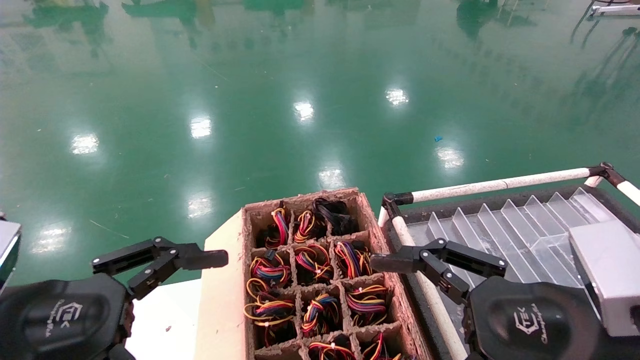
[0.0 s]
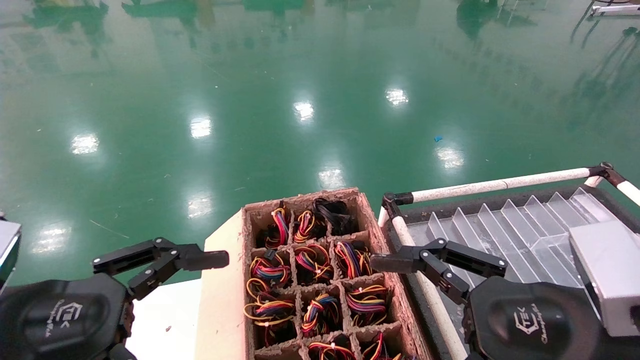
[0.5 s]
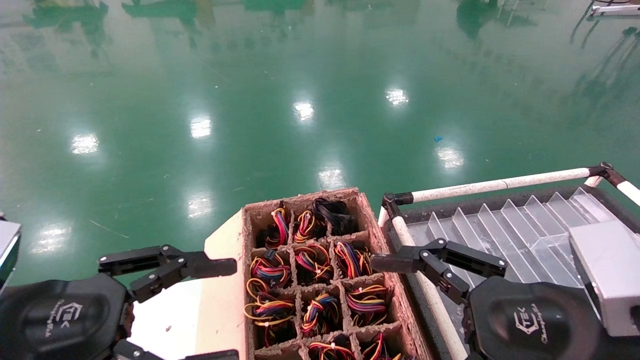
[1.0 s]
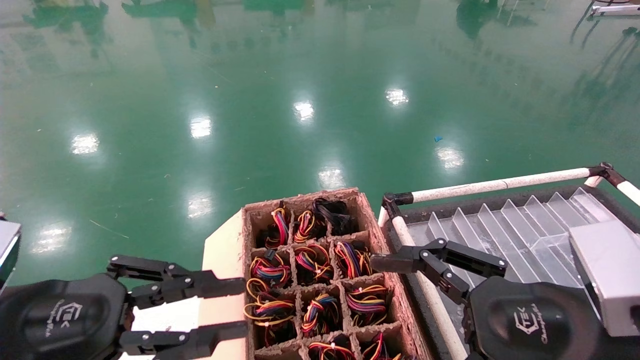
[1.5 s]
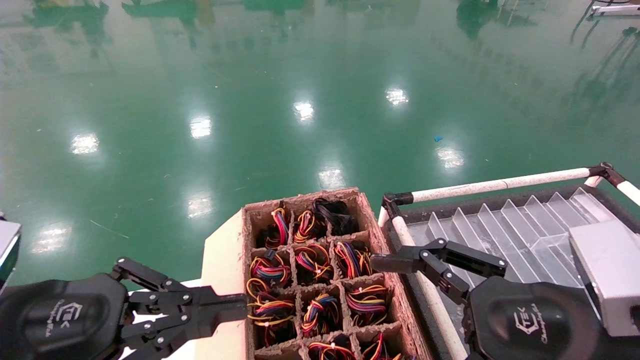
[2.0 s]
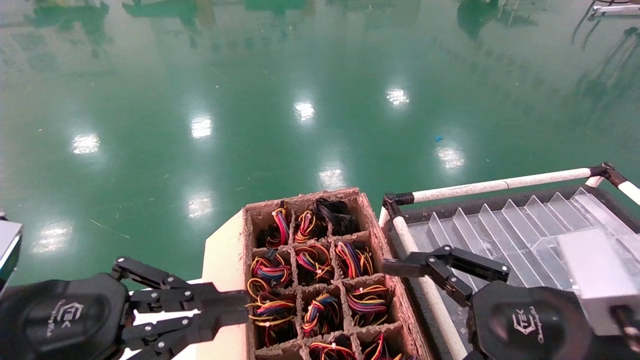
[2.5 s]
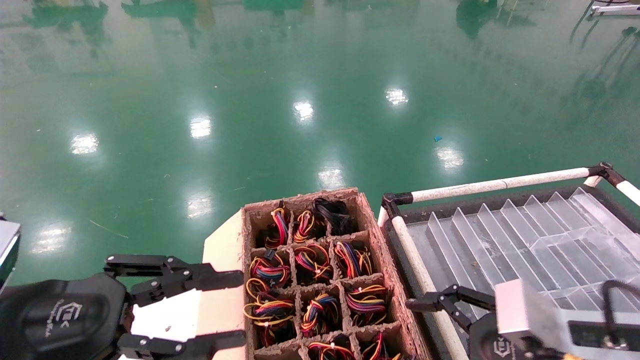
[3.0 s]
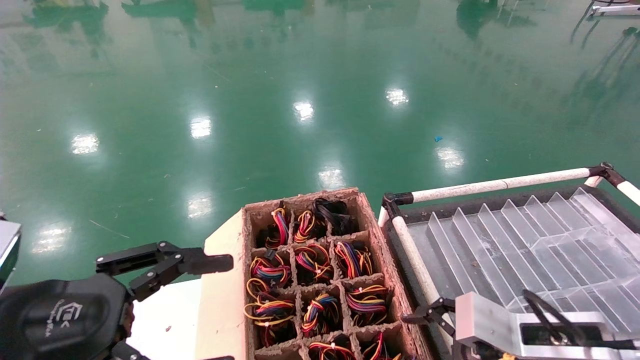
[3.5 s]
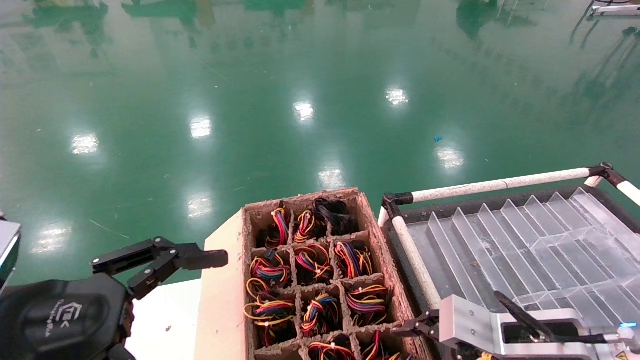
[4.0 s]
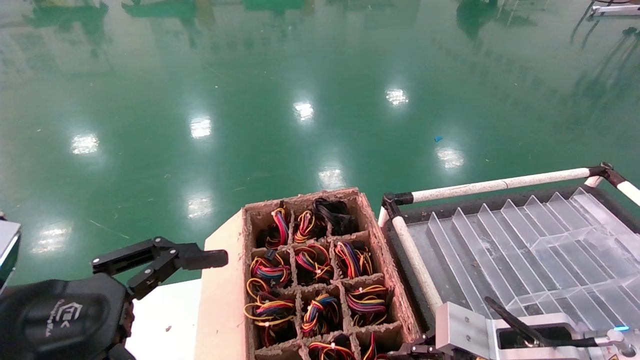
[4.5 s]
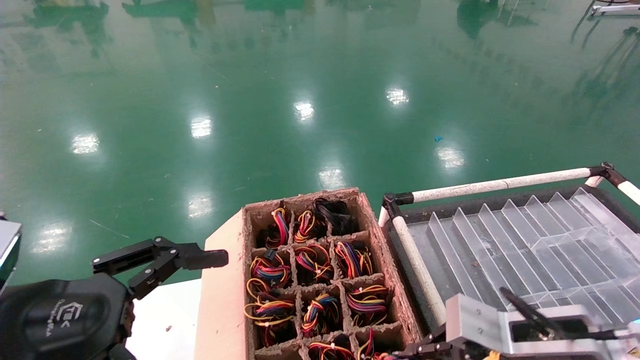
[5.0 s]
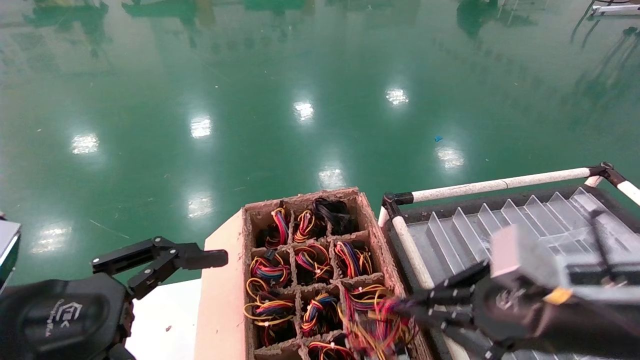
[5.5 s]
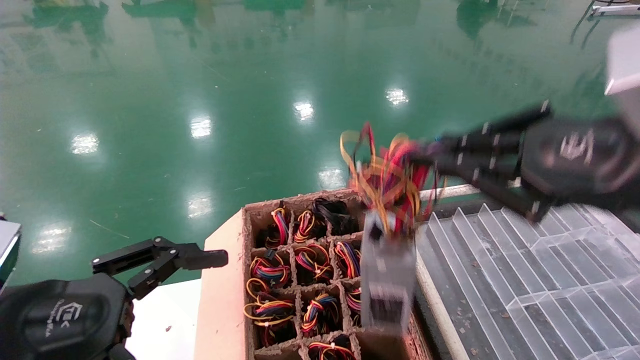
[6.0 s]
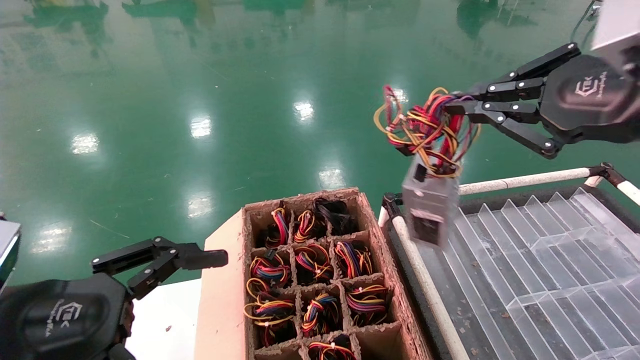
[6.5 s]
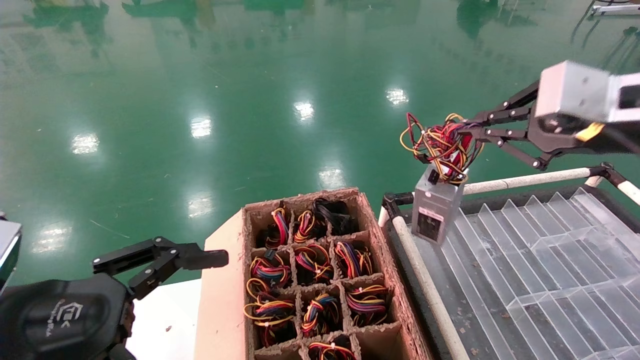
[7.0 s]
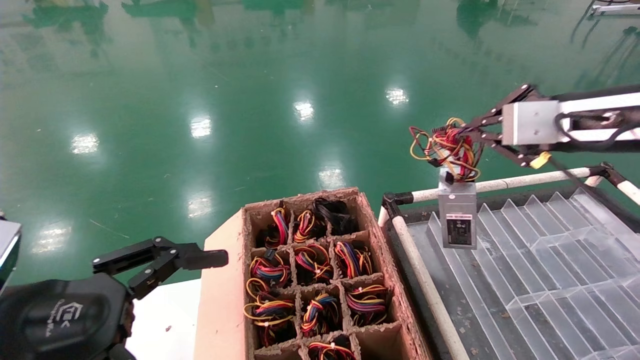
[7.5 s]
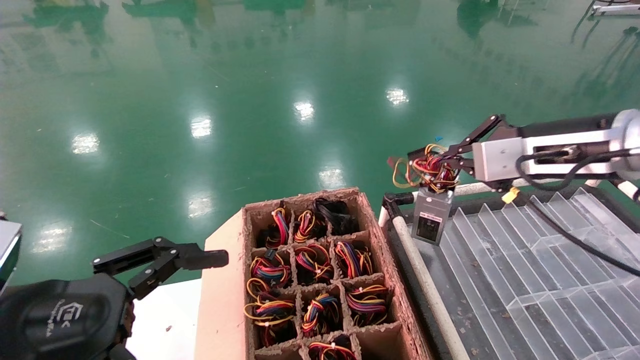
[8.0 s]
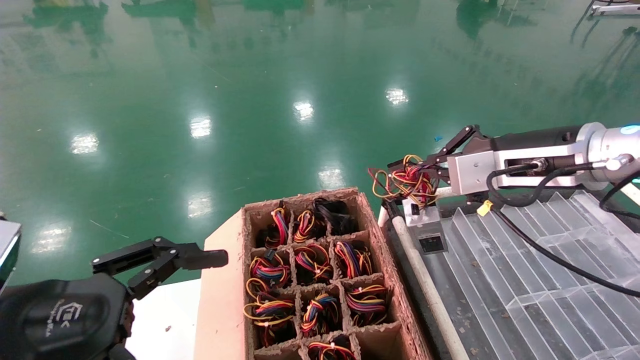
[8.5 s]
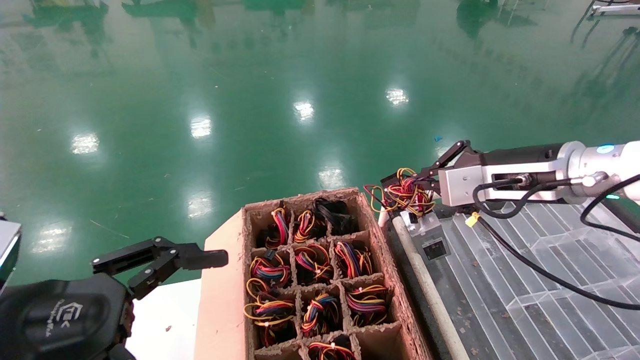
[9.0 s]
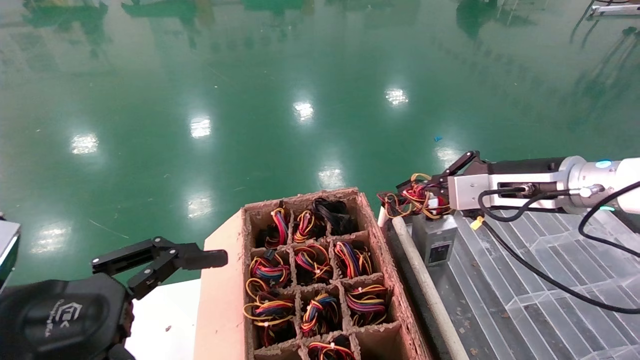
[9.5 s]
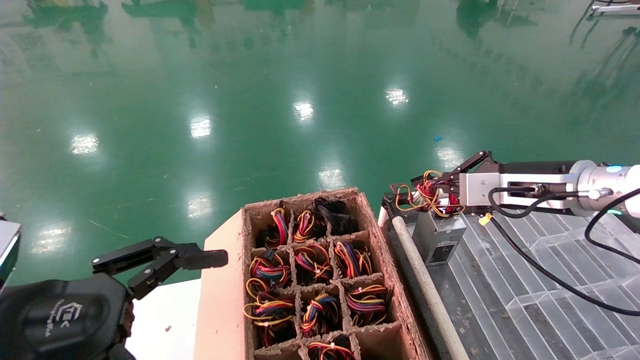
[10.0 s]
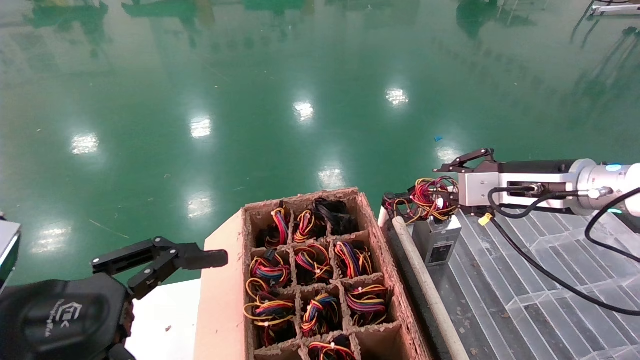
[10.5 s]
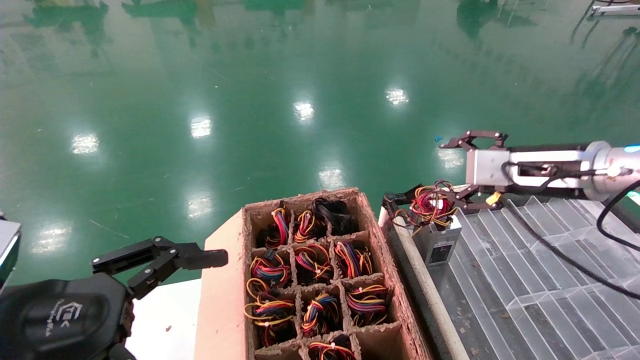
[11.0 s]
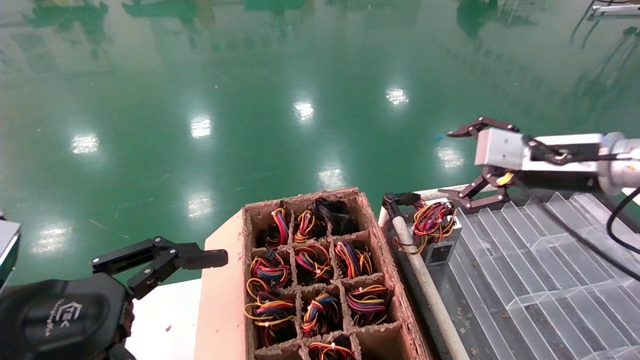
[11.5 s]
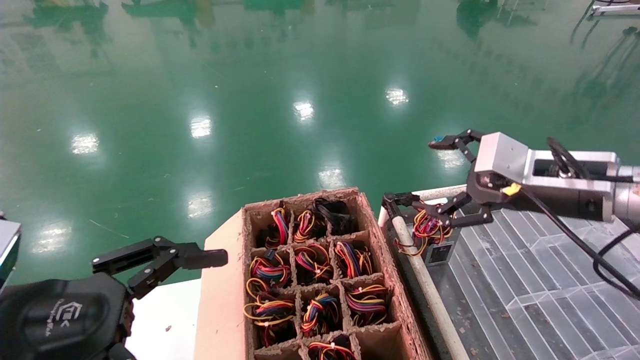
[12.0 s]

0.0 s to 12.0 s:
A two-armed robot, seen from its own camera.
Step, 1.0 to 4.5 s: Grab and lift the power supply from the large box.
Step, 5.0 to 10.0 s: Place the power supply on the operating table.
0.0 to 2.0 s: The left gripper closes.
2.0 to 4.0 s: The left gripper opens, while the right gripper heads downward and forward, covering roughly 10 cm.
4.0 to 6.0 s: The right gripper is displaced upward by roughly 20 cm, and closes up.
6.0 to 8.0 s: The right gripper shifts about 15 cm forward.
8.0 to 10.0 s: The right gripper goes roughly 10 cm downward and forward.
10.0 to 12.0 s: The right gripper goes roughly 5 cm backward, and opens up.
